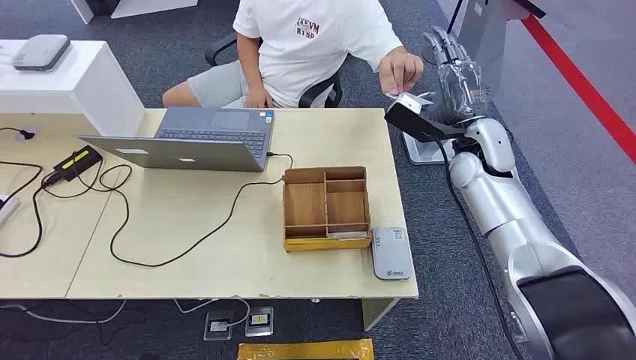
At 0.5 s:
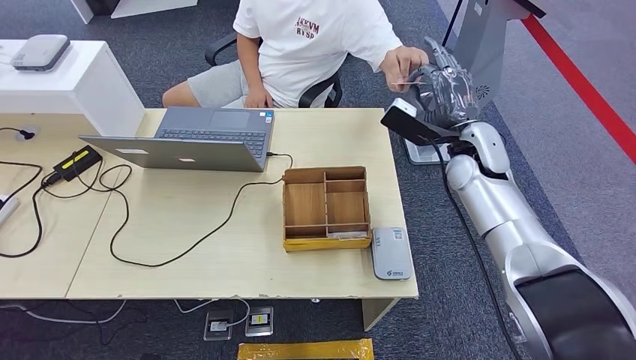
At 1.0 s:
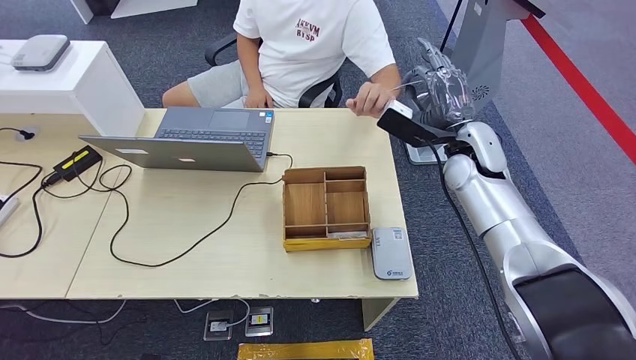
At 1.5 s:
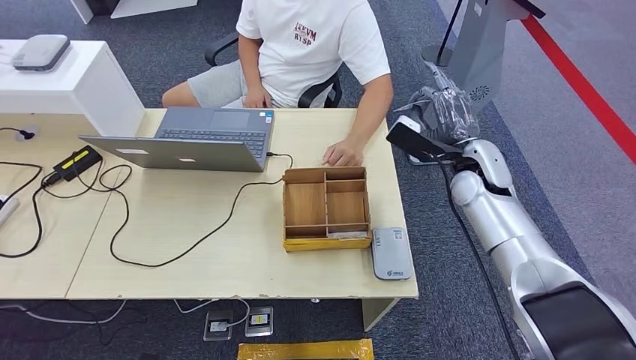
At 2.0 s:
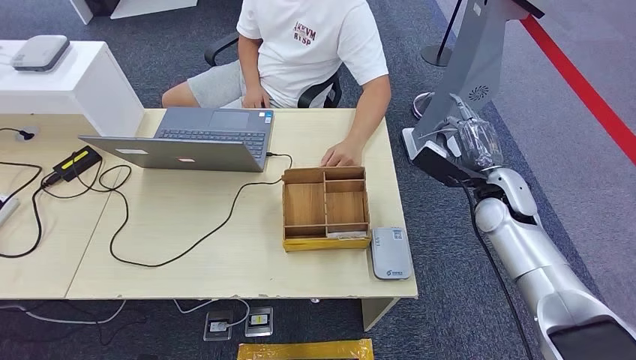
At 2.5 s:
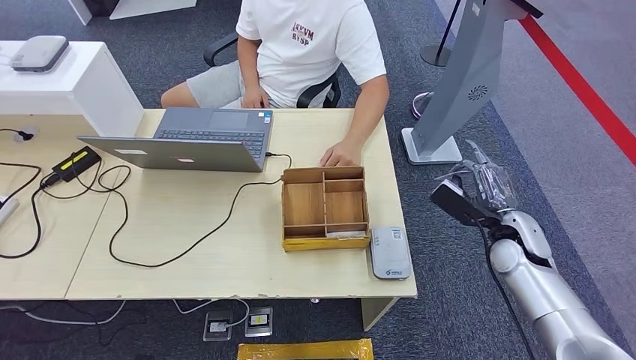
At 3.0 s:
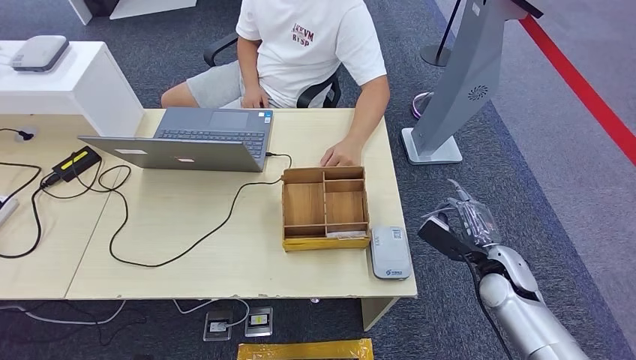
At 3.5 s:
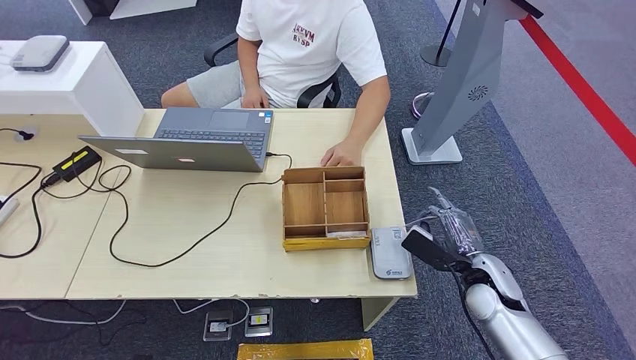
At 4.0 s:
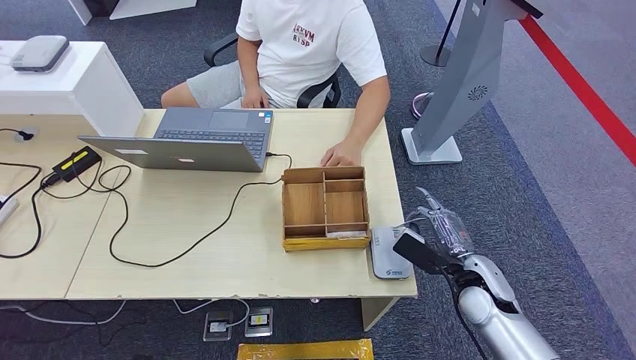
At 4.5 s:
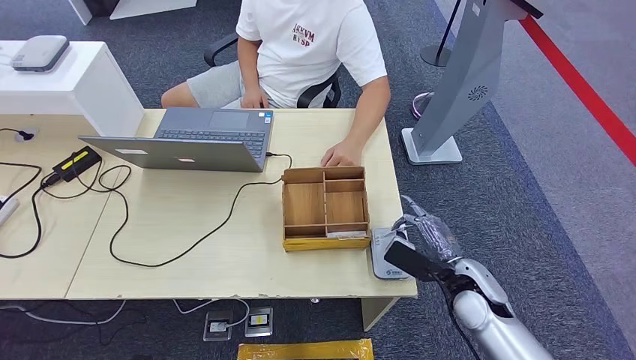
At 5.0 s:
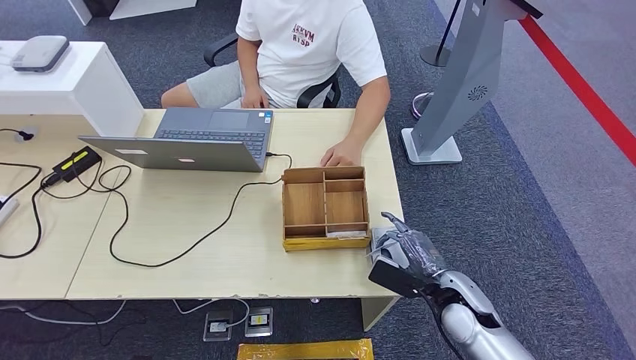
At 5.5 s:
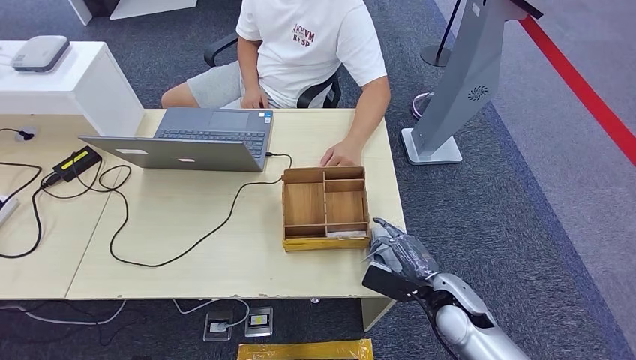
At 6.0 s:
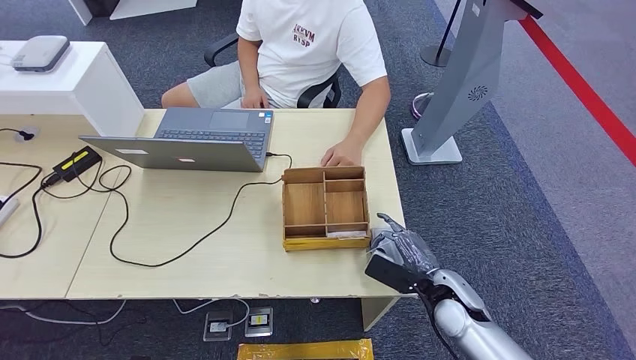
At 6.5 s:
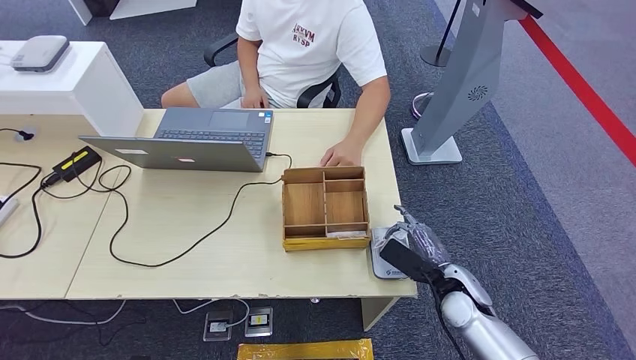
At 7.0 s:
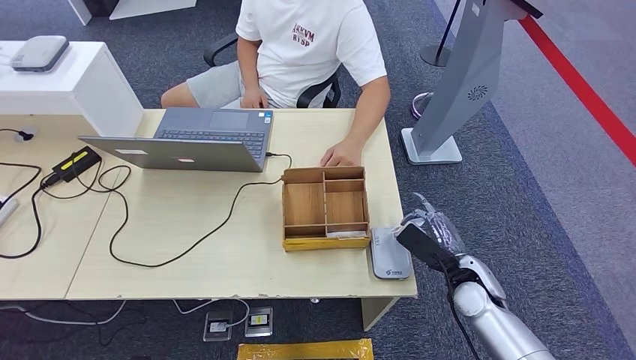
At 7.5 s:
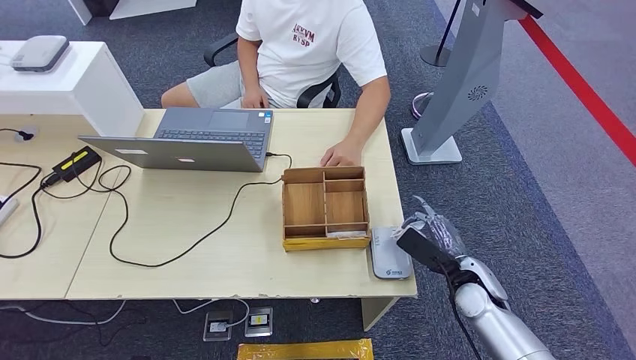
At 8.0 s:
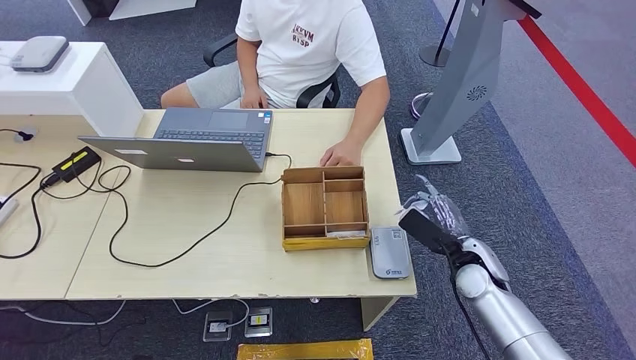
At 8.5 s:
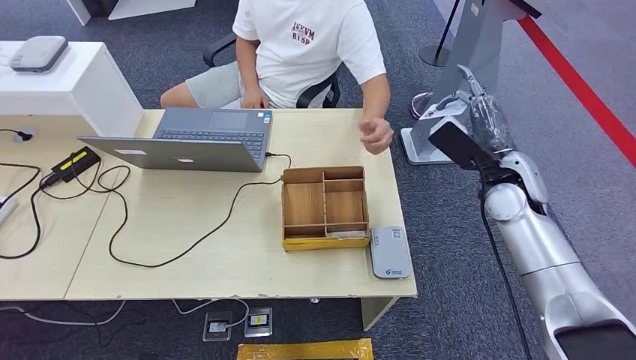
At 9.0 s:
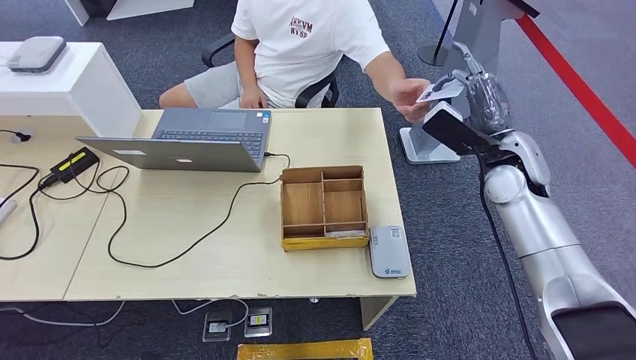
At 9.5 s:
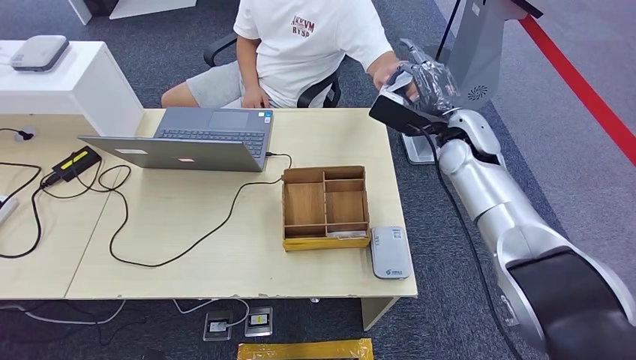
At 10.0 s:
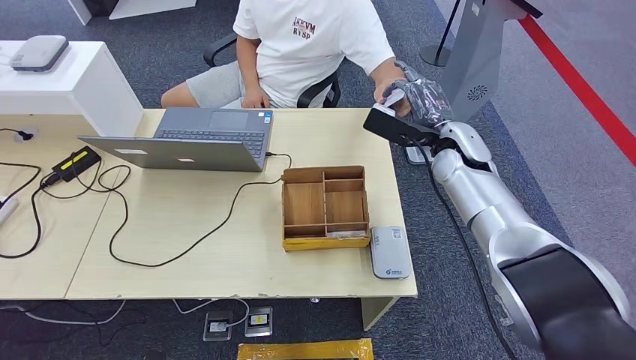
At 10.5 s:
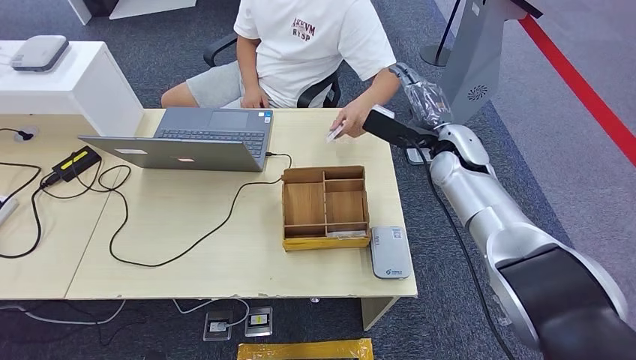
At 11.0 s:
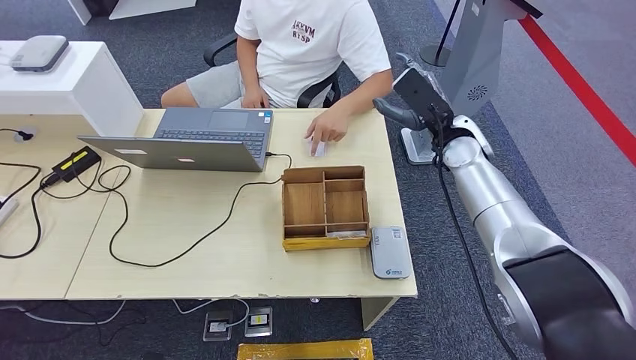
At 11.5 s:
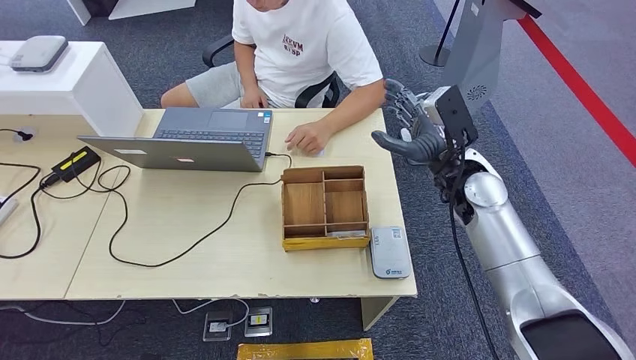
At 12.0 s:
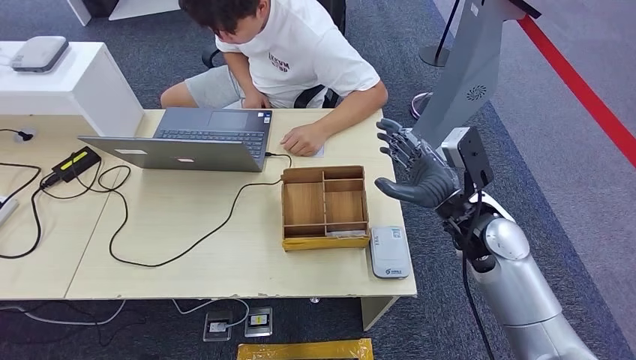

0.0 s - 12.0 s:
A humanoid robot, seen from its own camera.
Step, 0.0 s - 1.5 s: Take the ID card from the person's hand.
Step, 2.0 s - 8.0 s: Place the ID card on the card reader.
Step, 8.5 s - 10.0 s: Hand the ID card to the person.
2.0 s - 4.0 s: The right hand moves backward and downward, roughly 15 cm.
4.0 s - 6.0 s: The right hand ends up some 5 cm from where it was.
6.0 s - 8.0 s: The right hand ends up approximately 10 cm from where it was.
8.0 s - 10.0 s: The right hand goes some 20 cm upward and forward.
10.0 s - 12.0 s: The right hand is displaced backward by about 15 cm.

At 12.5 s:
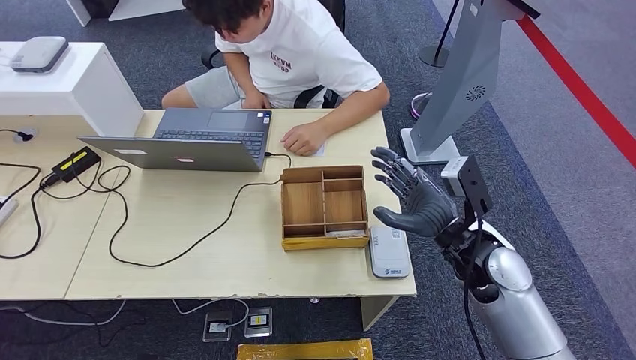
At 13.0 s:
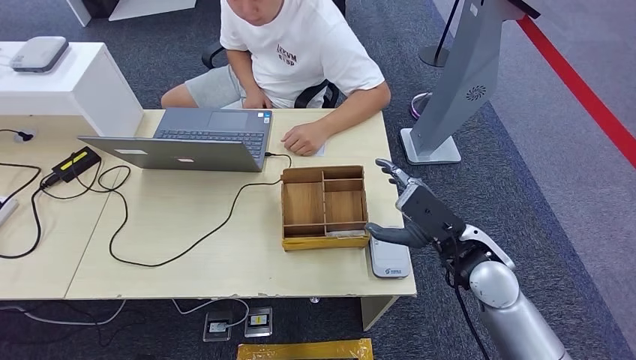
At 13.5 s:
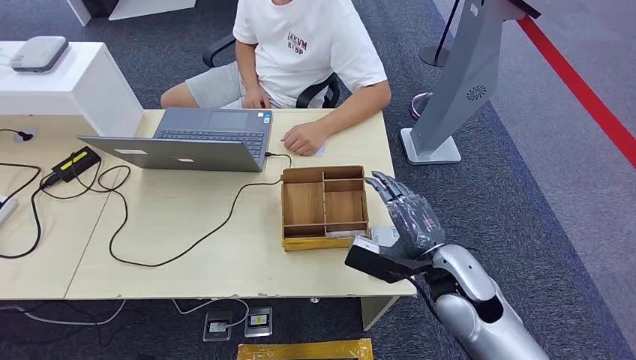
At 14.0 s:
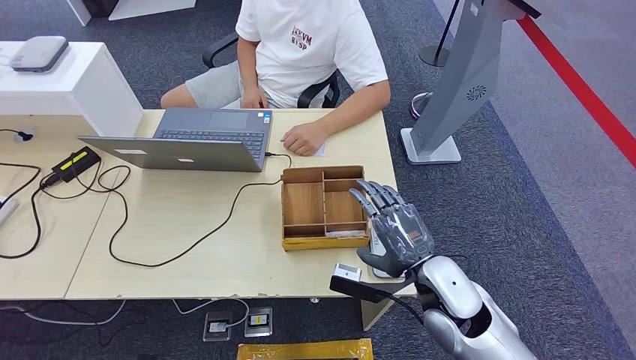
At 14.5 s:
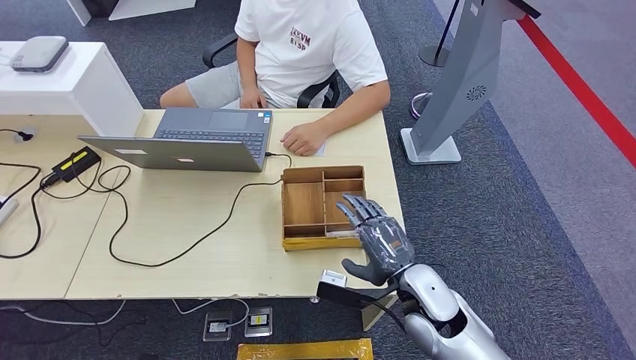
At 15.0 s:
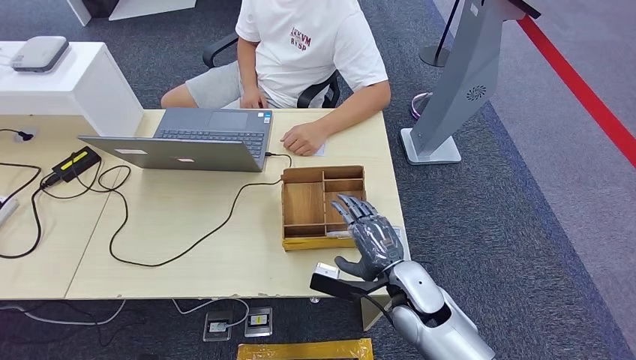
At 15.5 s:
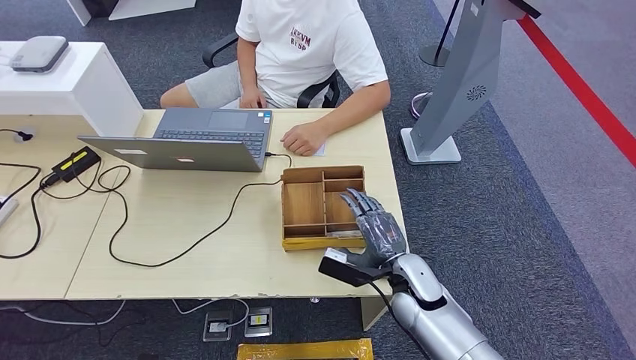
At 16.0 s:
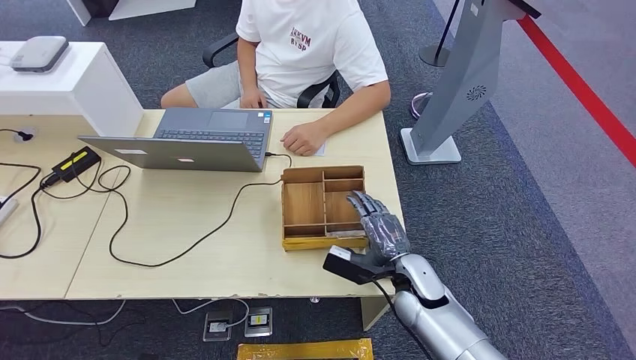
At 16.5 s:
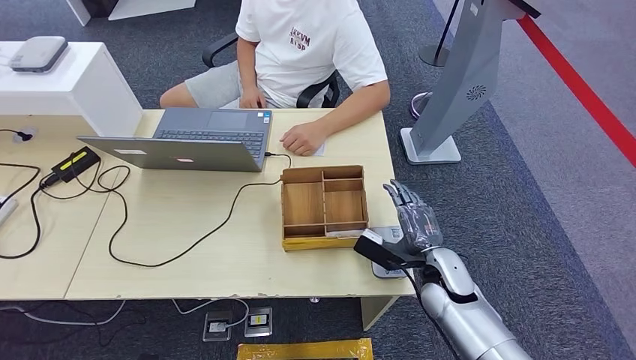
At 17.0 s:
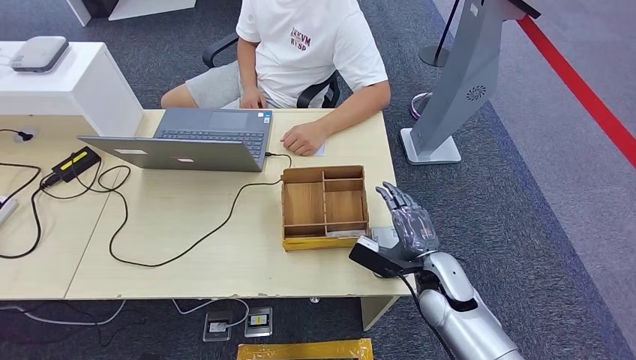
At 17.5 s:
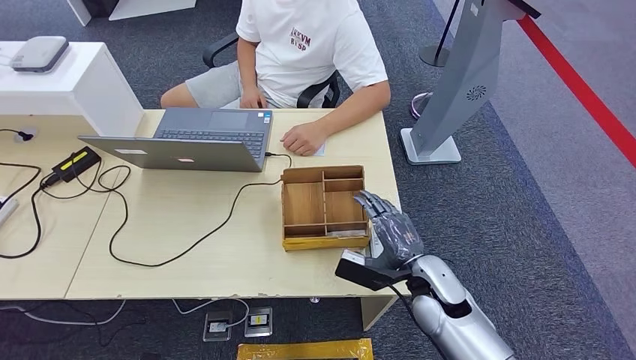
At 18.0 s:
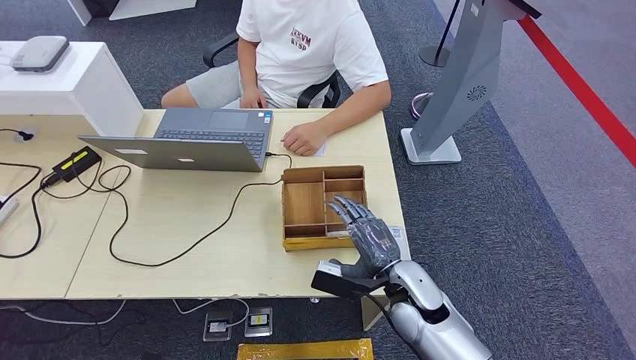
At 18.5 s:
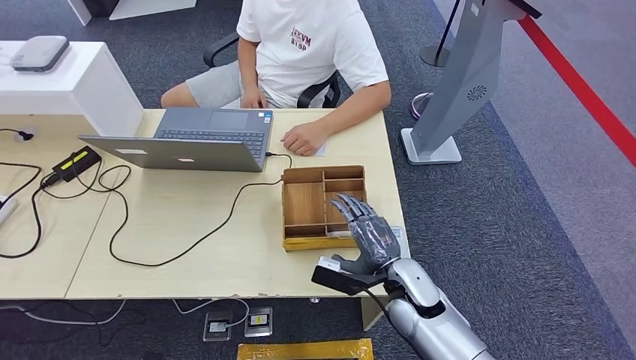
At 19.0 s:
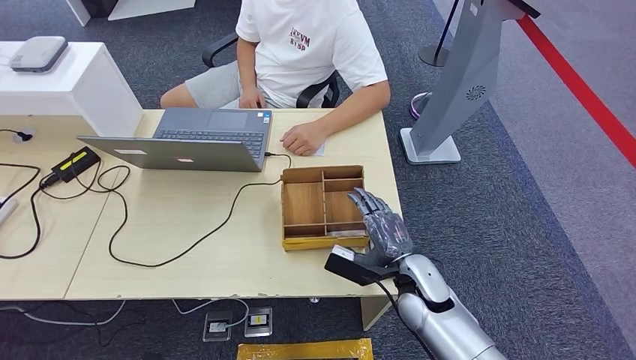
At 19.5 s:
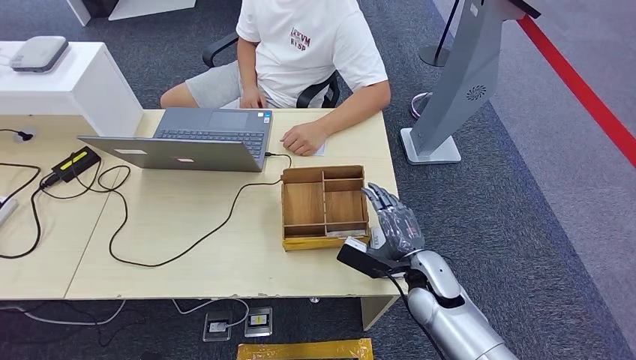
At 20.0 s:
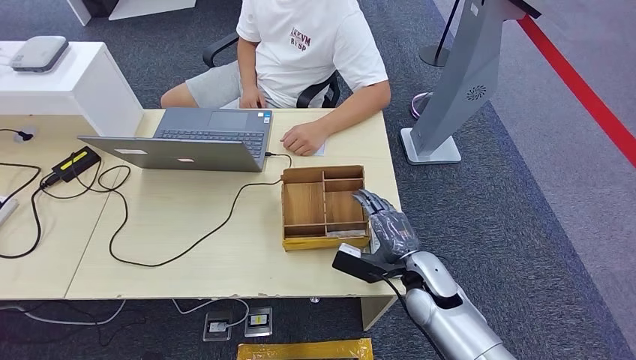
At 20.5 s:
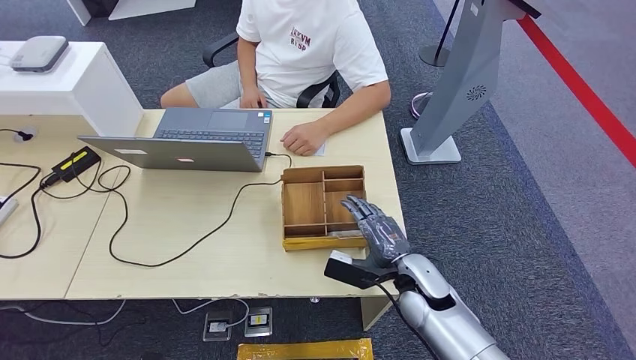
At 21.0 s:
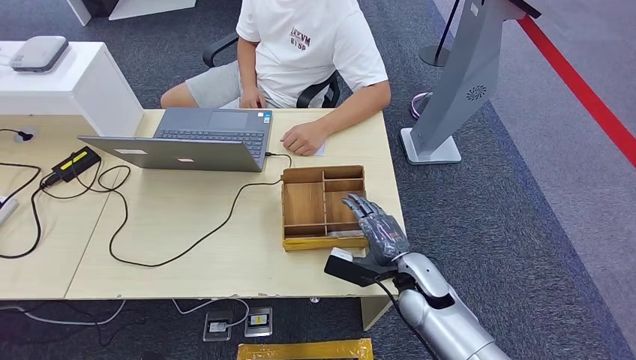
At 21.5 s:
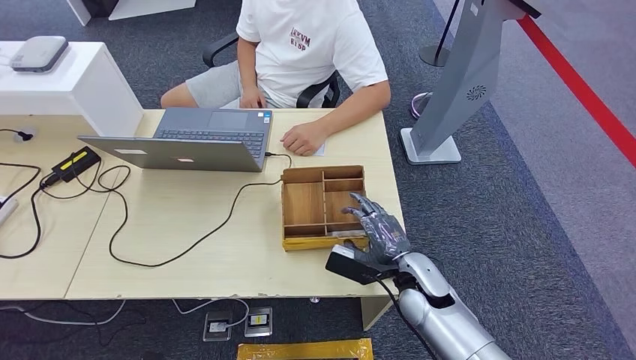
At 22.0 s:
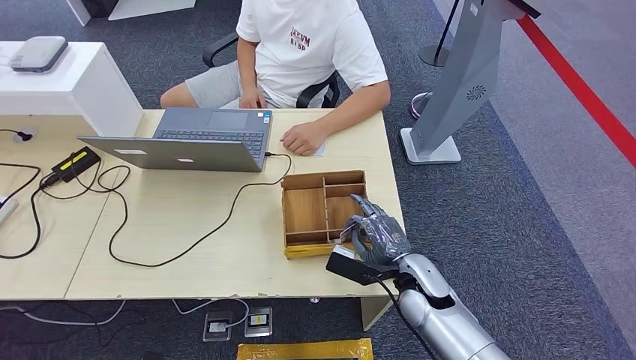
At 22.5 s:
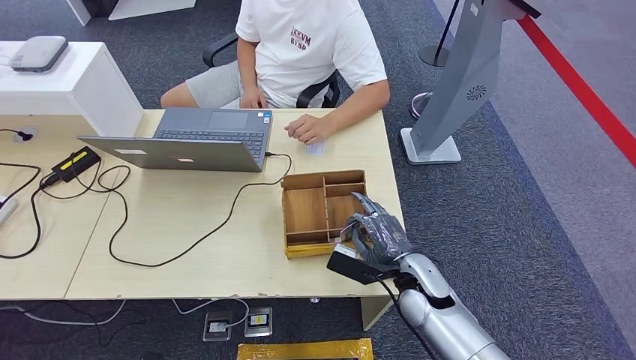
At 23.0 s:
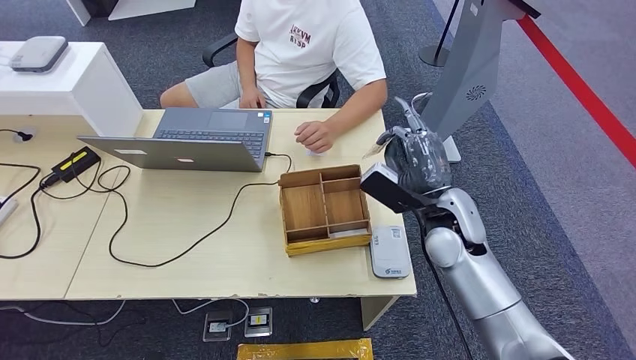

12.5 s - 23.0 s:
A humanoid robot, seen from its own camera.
12.5 s - 14.5 s: The right hand shifts approximately 10 cm downward and to the left.
14.5 s - 16.5 s: The right hand travels to the right by about 5 cm.
16.5 s - 19.0 s: The right hand shifts some 5 cm to the left.
19.0 s - 21.0 s: The hands make only small movements.
21.0 s - 23.0 s: The right hand travels upward and forward by about 15 cm.
